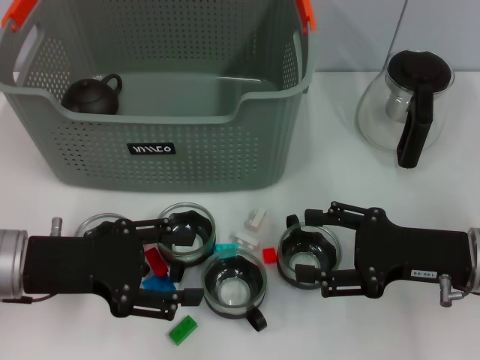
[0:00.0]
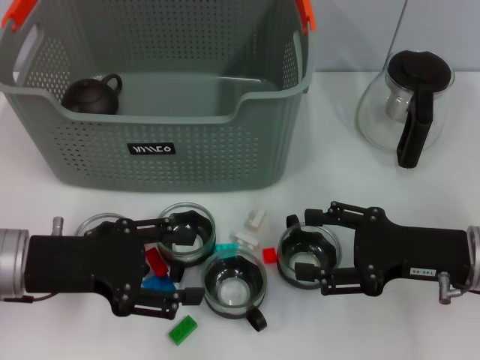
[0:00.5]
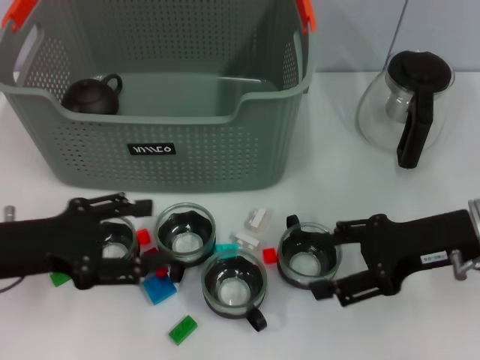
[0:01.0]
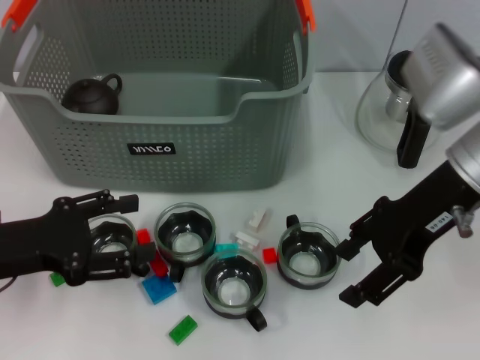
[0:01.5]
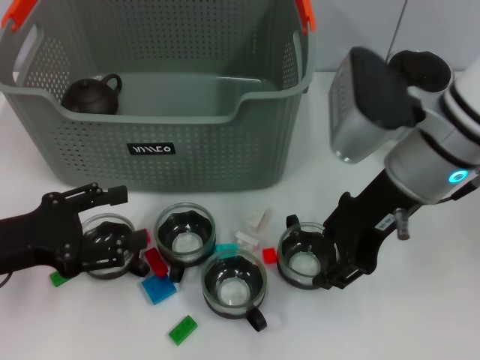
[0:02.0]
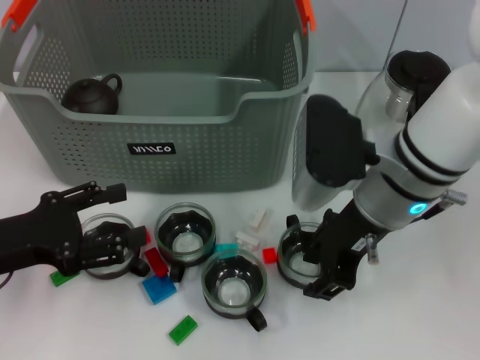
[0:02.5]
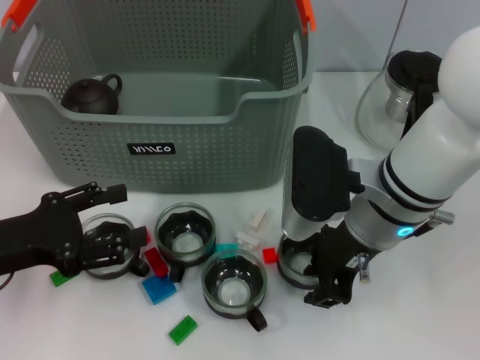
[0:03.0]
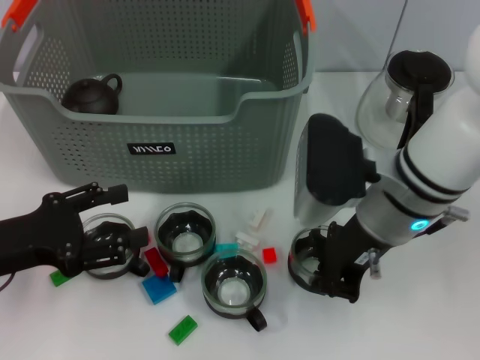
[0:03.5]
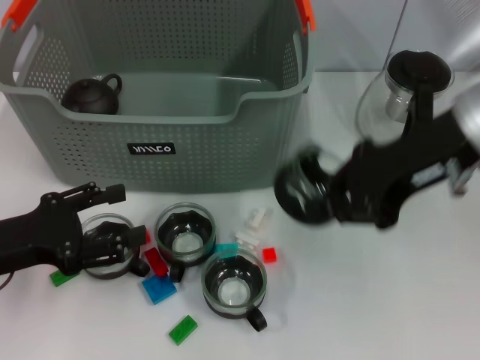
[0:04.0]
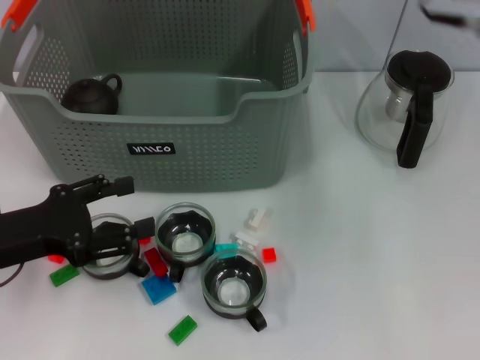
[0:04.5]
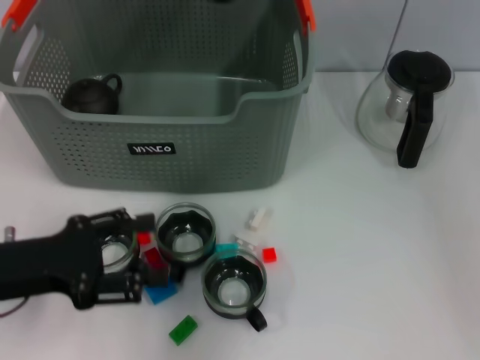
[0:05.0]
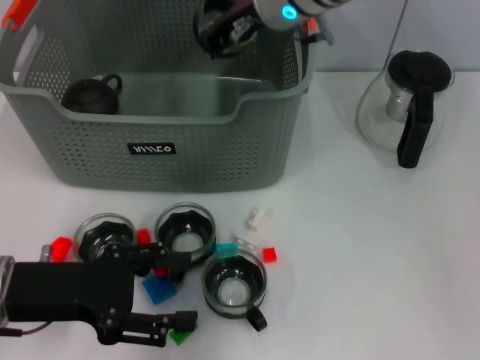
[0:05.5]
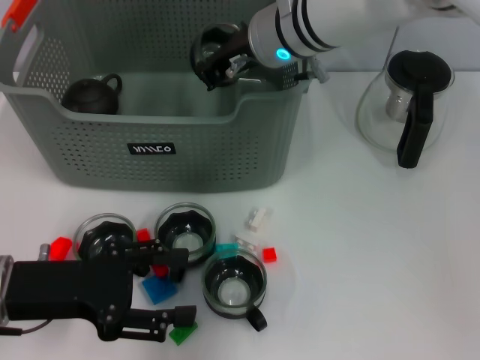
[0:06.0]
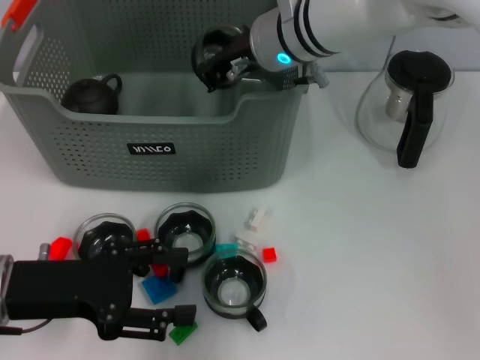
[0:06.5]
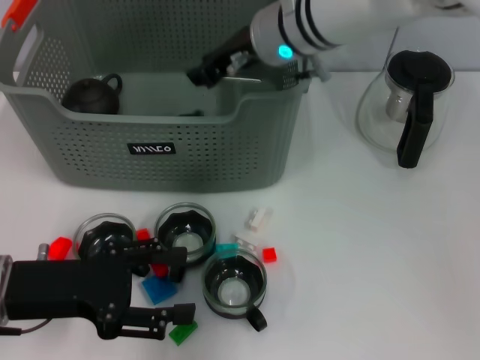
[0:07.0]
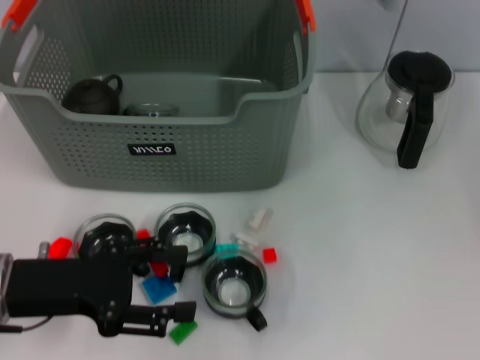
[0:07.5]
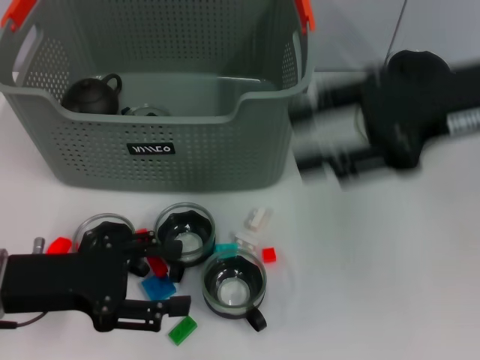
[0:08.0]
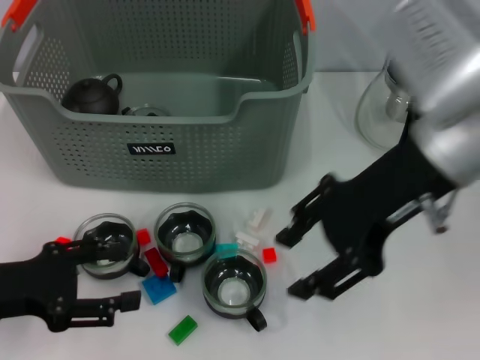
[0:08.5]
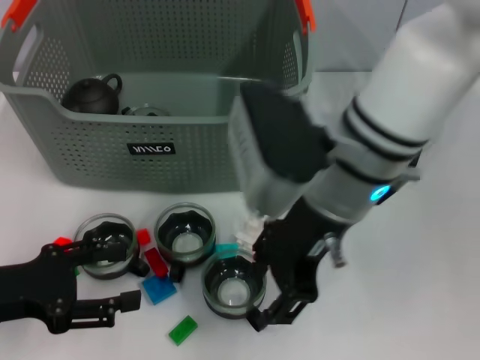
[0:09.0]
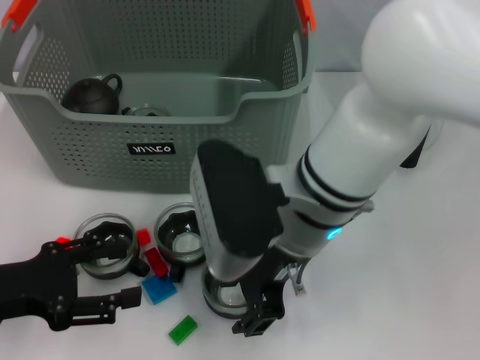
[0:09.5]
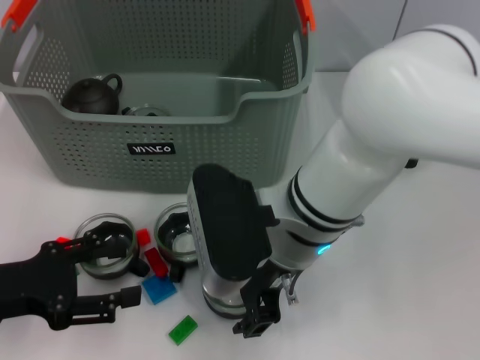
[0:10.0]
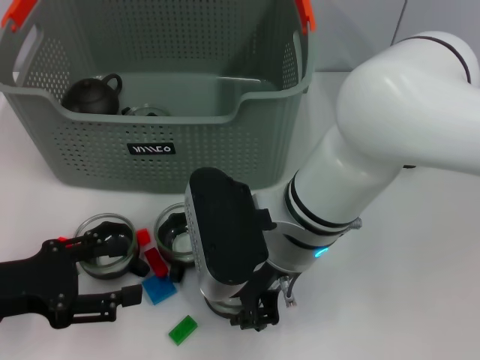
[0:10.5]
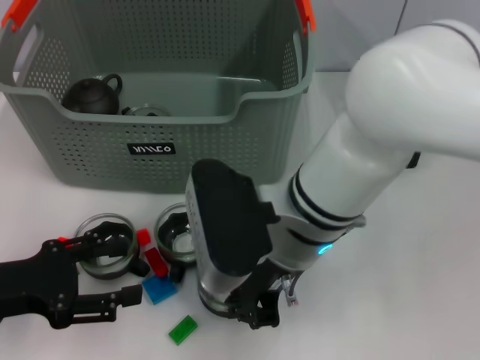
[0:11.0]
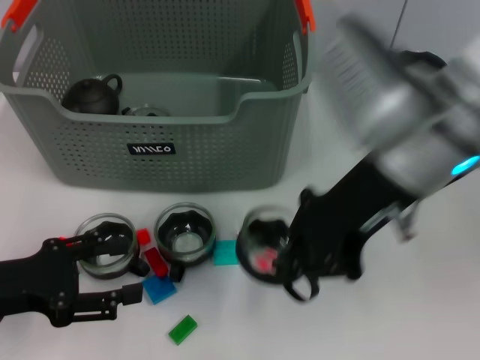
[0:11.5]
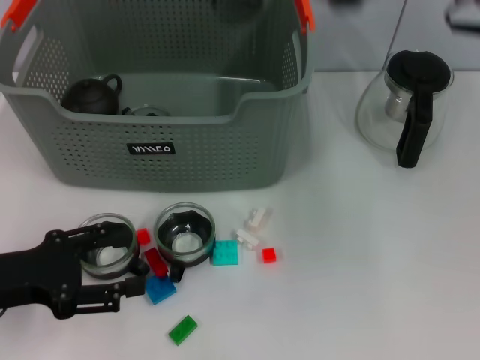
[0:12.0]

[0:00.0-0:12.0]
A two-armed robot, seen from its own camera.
Task of the whole recording: pick up the teacup on the table and place it into the storage bin, pick up the block on the table and place it into the storage bin.
Step, 0:00.0 to 0:03.0: Grasp the cup with right gripper.
Step, 0:03.5 to 0:07.0: Place the cup in the storage box with right gripper.
Step, 0:07.5 to 0:10.5: Grasp the cup with right gripper.
0:00.0 to 0:02.0: The right gripper travels upward, to the left and forward by roughly 15 cm. The left gripper shifts by some 5 cm.
0:02.0 to 0:04.0: The right gripper travels upward by approximately 5 cm, and closes.
0:04.0 to 0:06.0: The right gripper shifts some 20 cm to the left and forward.
0:06.0 to 0:08.0: The right gripper travels to the right and backward by some 20 cm, and opens its fingers.
0:08.0 to 0:10.0: The right gripper travels to the left and downward by roughly 20 cm.
0:10.0 to 0:12.0: The right gripper travels upward and to the right by roughly 20 cm, and closes its fingers.

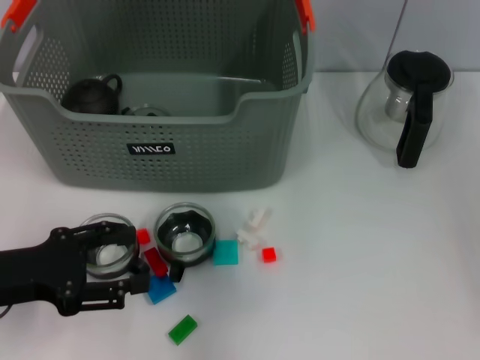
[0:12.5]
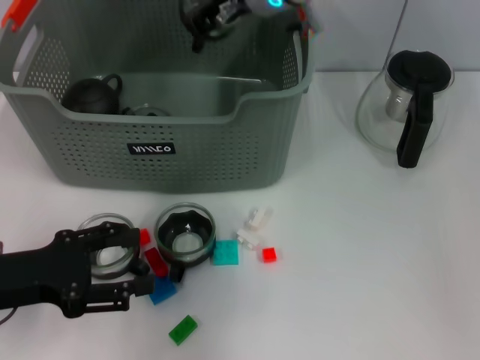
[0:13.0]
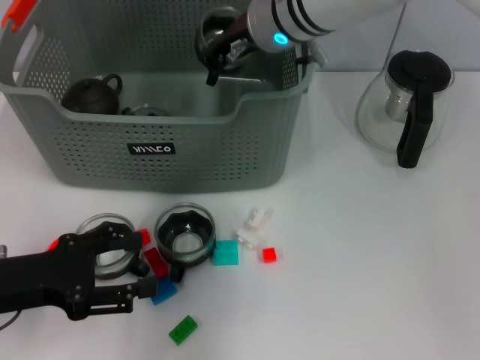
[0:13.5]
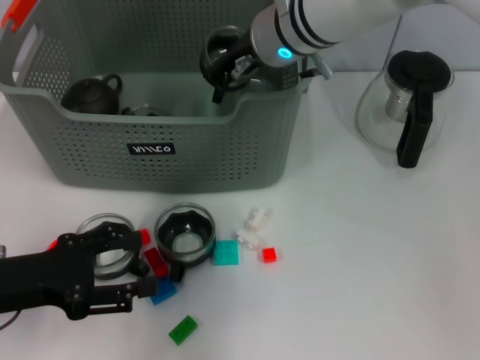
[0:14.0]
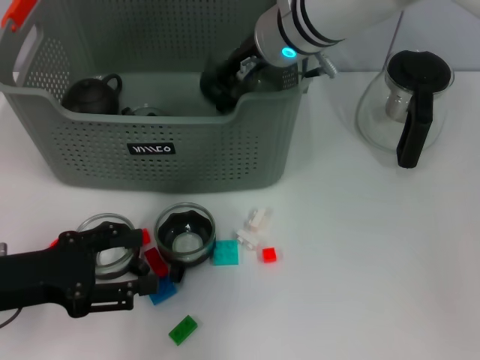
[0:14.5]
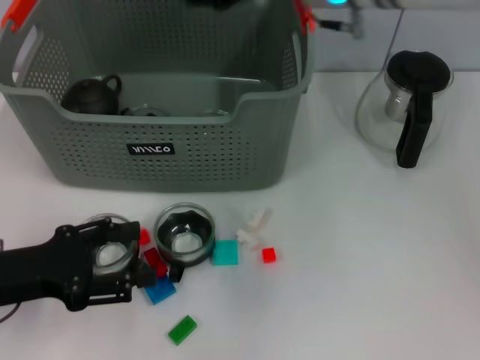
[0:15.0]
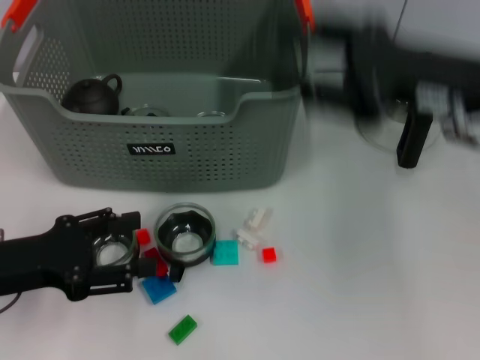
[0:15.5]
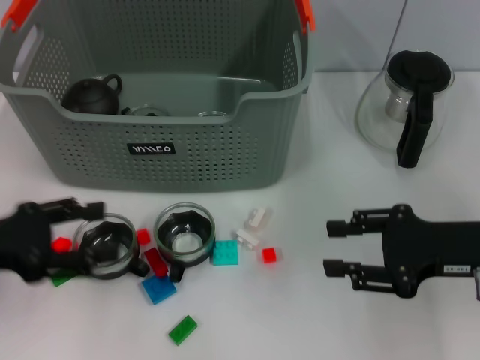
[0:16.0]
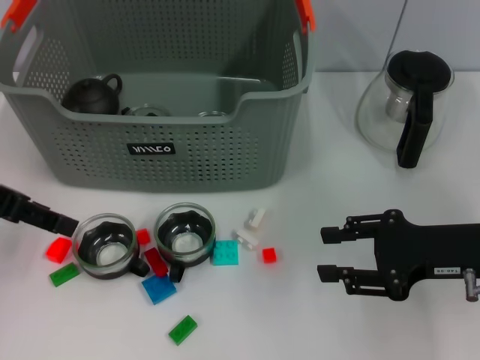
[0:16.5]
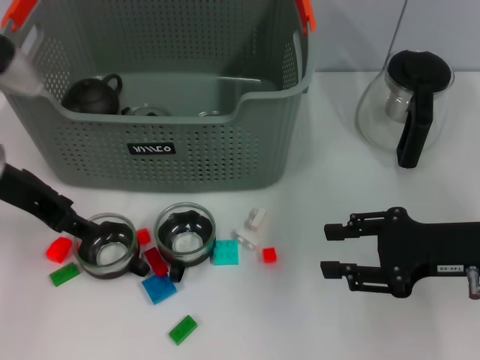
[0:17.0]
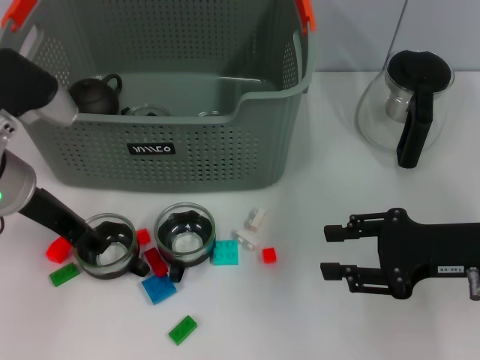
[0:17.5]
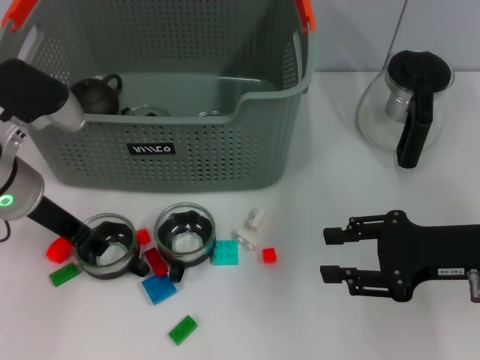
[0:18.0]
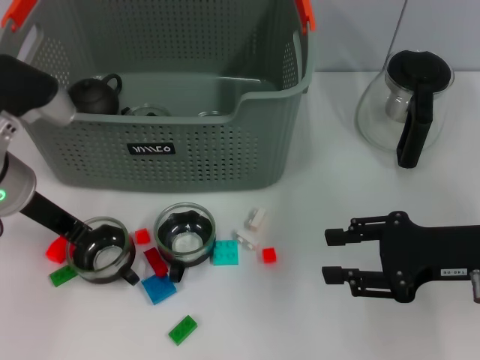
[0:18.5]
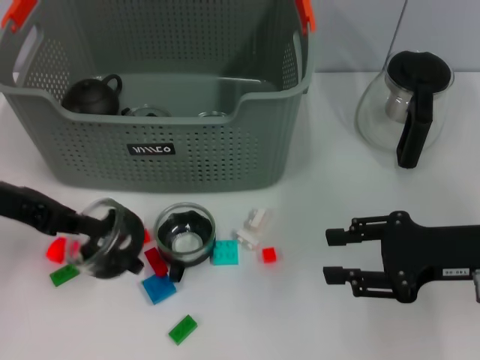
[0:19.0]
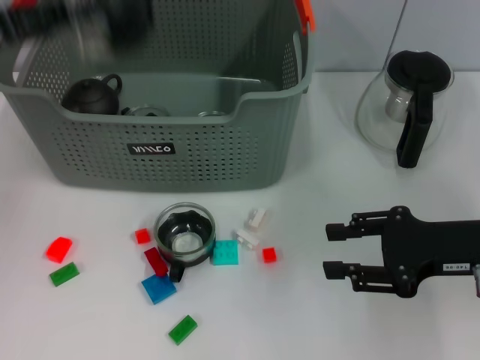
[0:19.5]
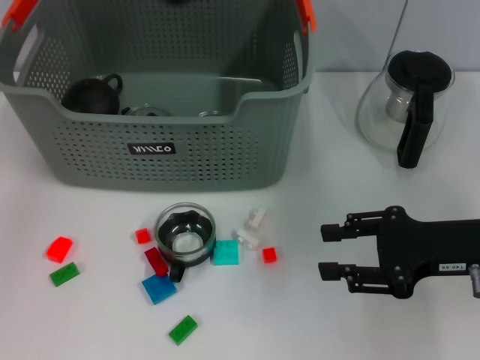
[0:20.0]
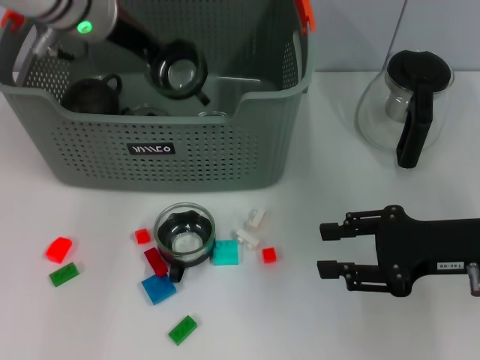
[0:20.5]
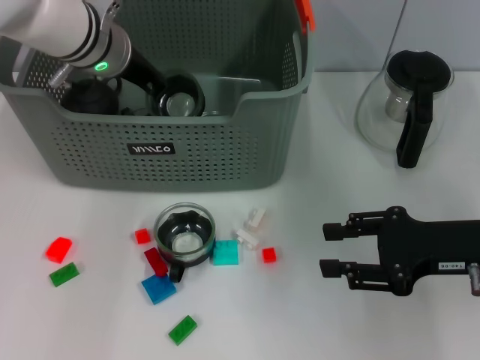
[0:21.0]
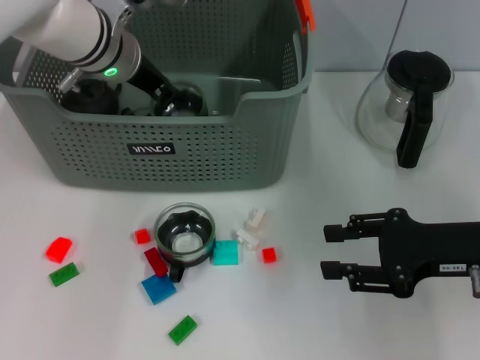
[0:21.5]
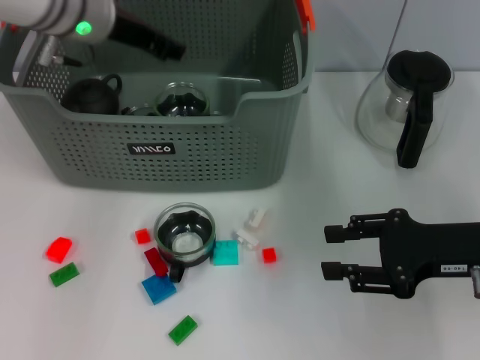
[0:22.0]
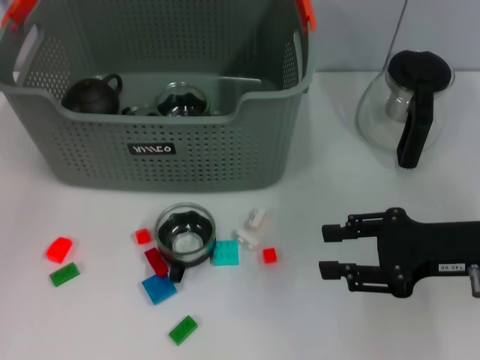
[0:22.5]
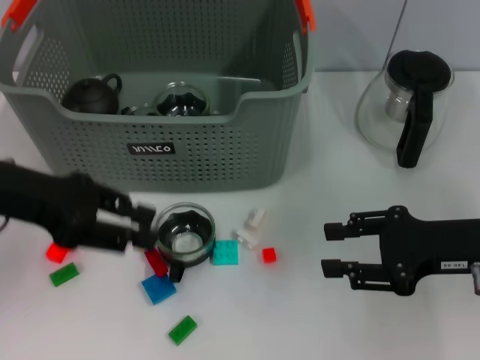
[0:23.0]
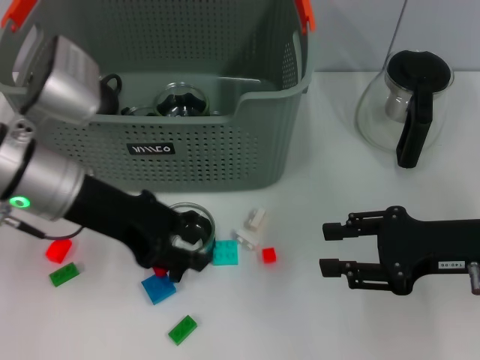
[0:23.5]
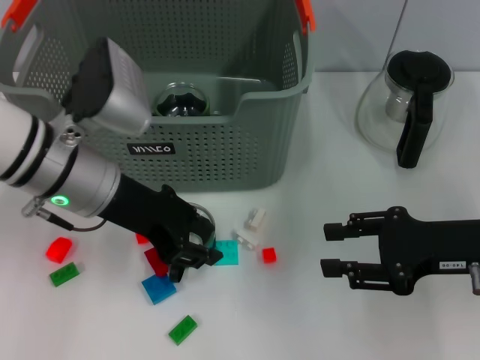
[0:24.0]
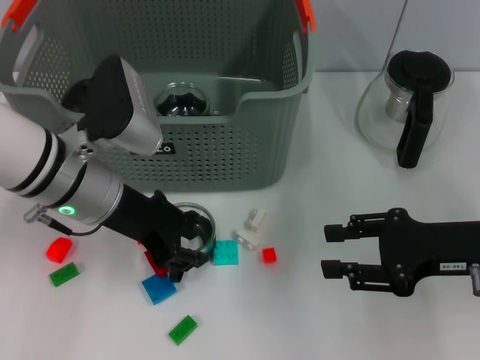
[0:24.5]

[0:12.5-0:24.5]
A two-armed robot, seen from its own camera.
Task of the whole recording: pick up the teacup on the table and place it into the storage bin, pick up the block on the table and place it into the storage bin.
Step, 0:12.5 to 0:14.5: Place the cup in the storage box with right gripper.
Step, 0:15.0 to 0:18.0: Grasp the cup with left gripper.
Step, 0:18.5 to 0:22.0: Place the cup in the storage box with left gripper.
0:12.5 to 0:14.5: The right gripper travels downward by roughly 10 cm.
0:14.5 to 0:16.5: The left gripper is displaced upward and forward by approximately 15 cm; the right gripper goes roughly 30 cm to the right, backward and downward, and opens.
0:16.5 to 0:18.5: The left gripper shifts some 10 cm downward and to the right, and closes its fingers.
0:18.5 to 0:20.5: The left gripper shifts roughly 15 cm forward, upward and to the right.
0:20.5 to 0:22.5: The left gripper moves to the left and backward, about 15 cm, and opens its fingers.
0:22.5 to 0:24.5: The left gripper travels downward and to the right by roughly 15 cm.

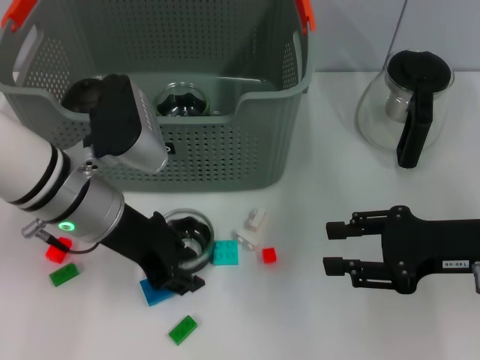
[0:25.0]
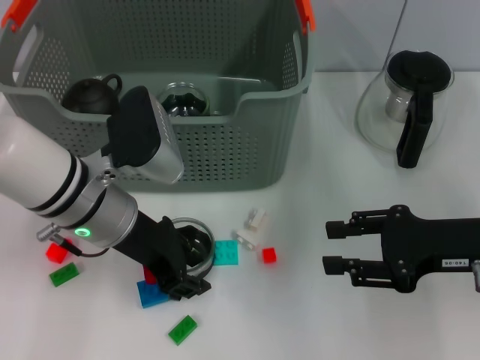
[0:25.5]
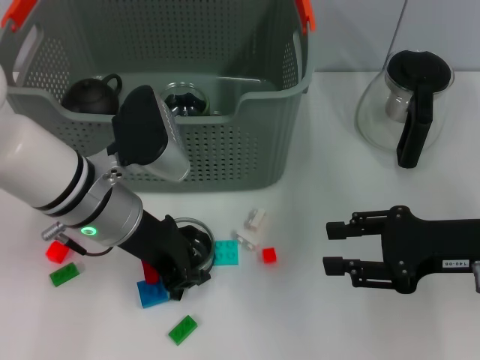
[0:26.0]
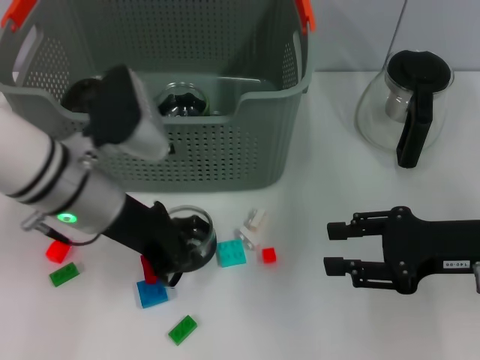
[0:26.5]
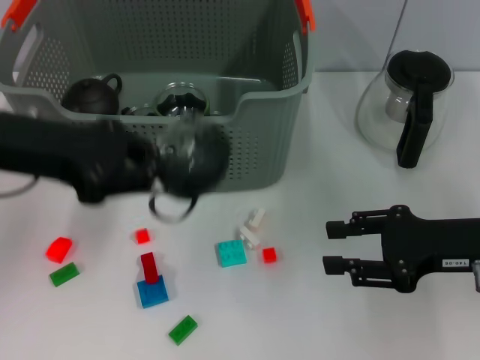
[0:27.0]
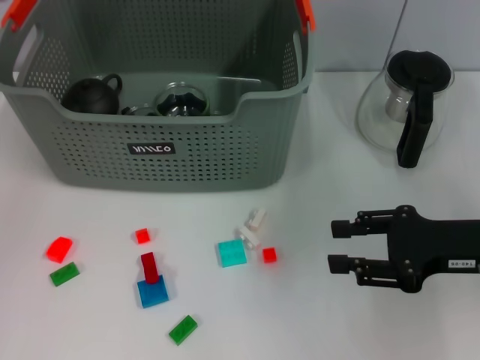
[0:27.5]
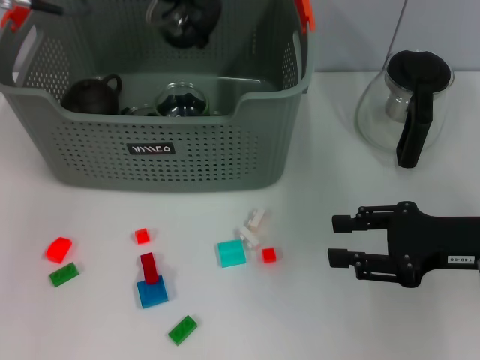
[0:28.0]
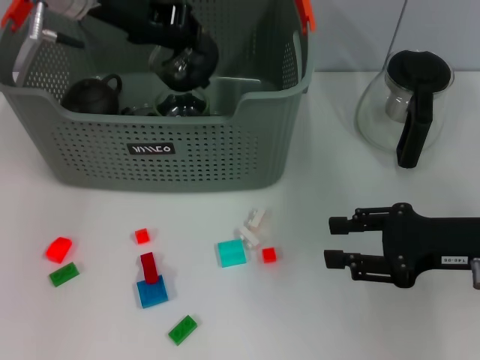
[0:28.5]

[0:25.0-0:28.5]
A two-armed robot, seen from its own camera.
Task of the whole recording: pick up the teacup on the table and place it into the storage bin, pick up the block on the table and place it into the storage bin.
0:25.0 to 0:27.0: The left gripper heads to the left and upward, covering approximately 10 cm, and closes its fingers.
0:27.0 to 0:28.5: The left gripper heads forward and to the right, covering roughly 15 cm.
